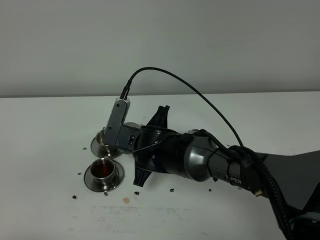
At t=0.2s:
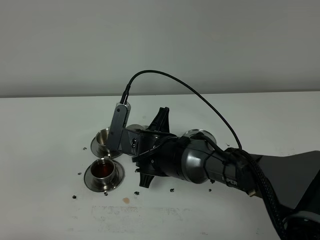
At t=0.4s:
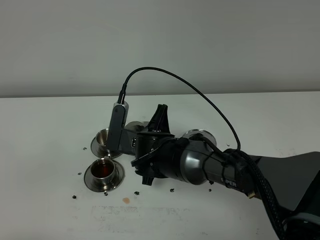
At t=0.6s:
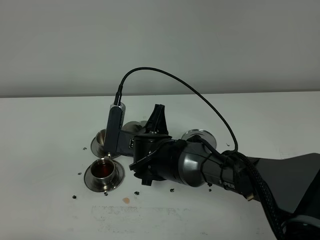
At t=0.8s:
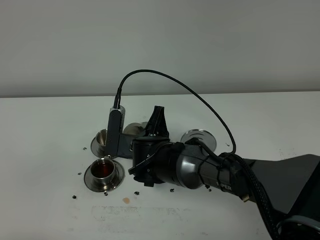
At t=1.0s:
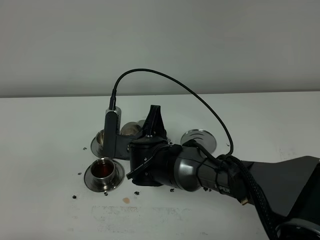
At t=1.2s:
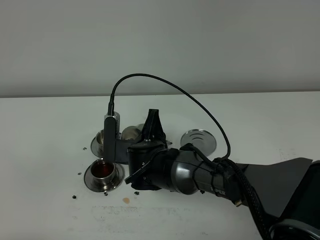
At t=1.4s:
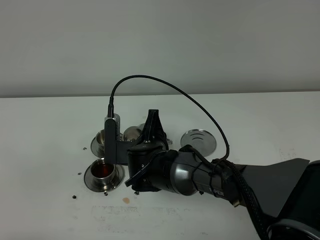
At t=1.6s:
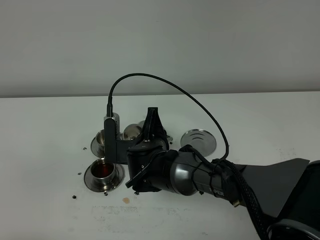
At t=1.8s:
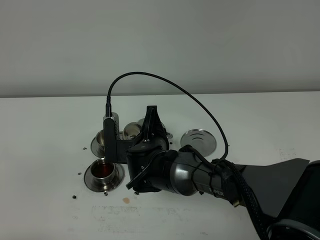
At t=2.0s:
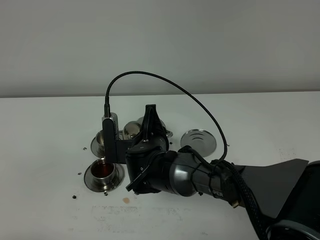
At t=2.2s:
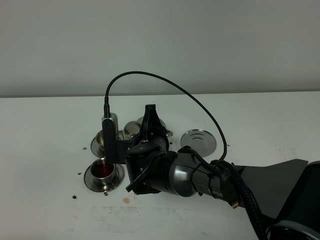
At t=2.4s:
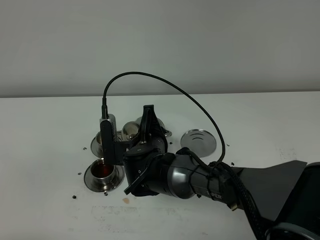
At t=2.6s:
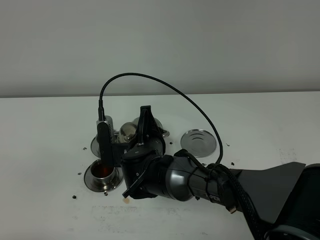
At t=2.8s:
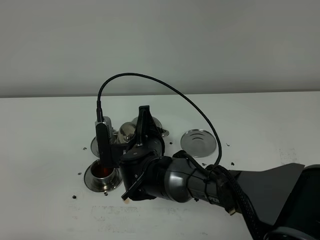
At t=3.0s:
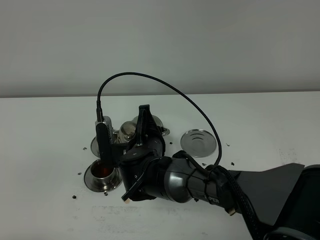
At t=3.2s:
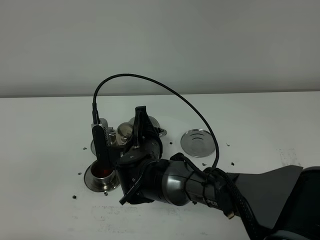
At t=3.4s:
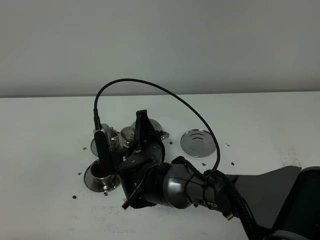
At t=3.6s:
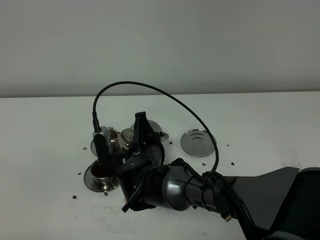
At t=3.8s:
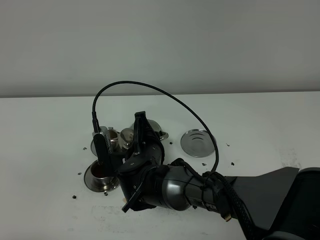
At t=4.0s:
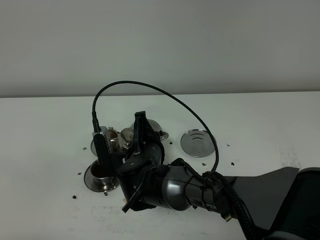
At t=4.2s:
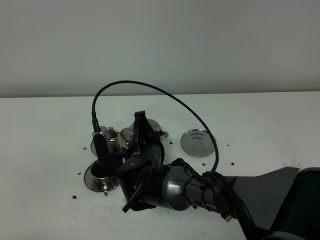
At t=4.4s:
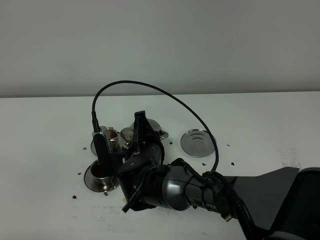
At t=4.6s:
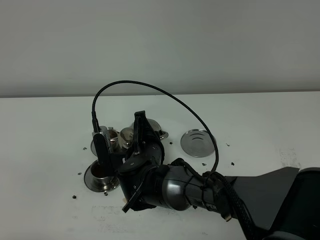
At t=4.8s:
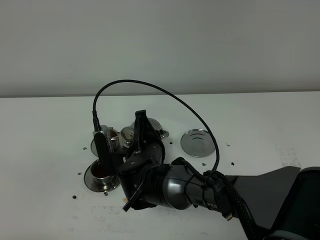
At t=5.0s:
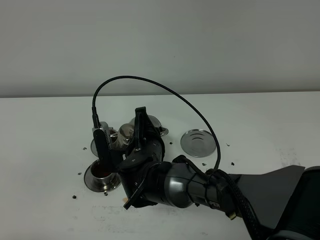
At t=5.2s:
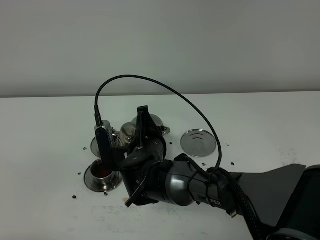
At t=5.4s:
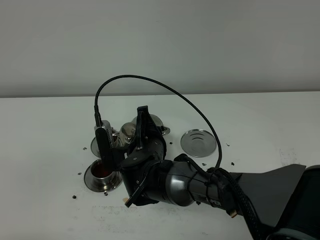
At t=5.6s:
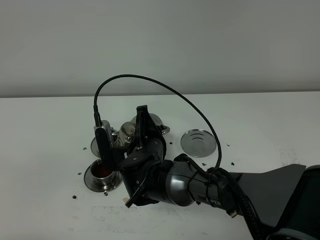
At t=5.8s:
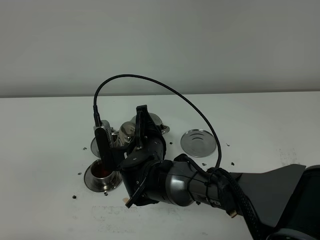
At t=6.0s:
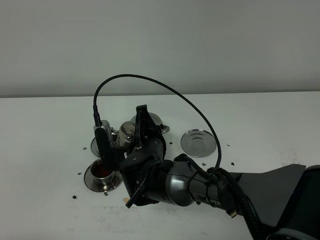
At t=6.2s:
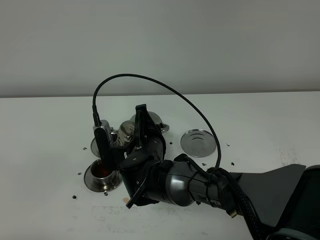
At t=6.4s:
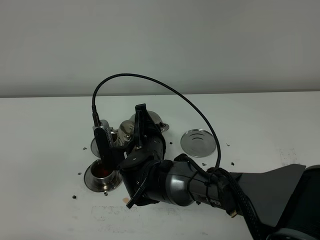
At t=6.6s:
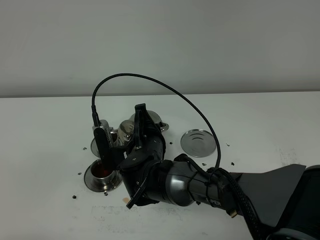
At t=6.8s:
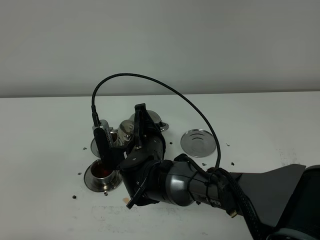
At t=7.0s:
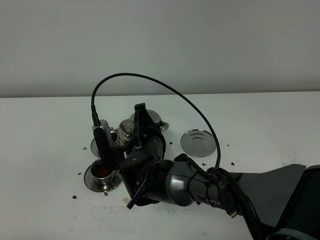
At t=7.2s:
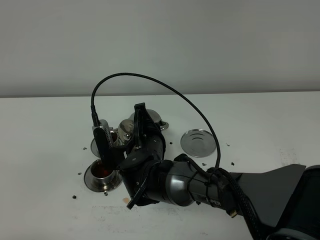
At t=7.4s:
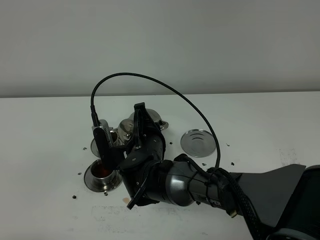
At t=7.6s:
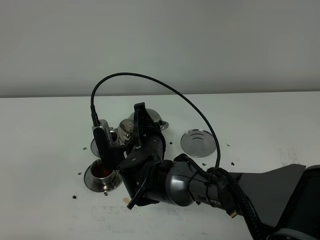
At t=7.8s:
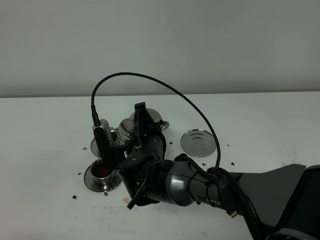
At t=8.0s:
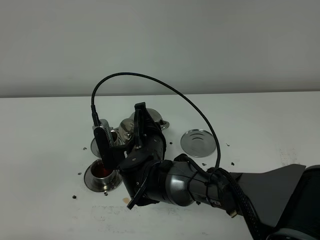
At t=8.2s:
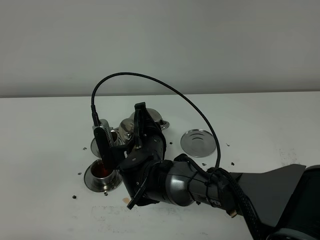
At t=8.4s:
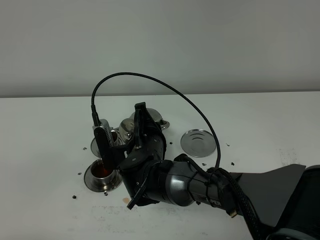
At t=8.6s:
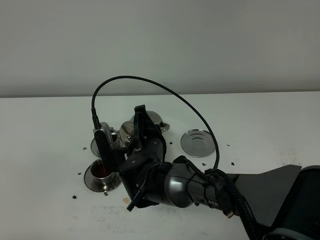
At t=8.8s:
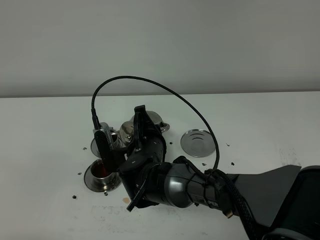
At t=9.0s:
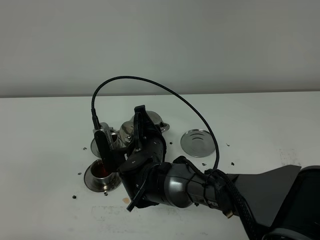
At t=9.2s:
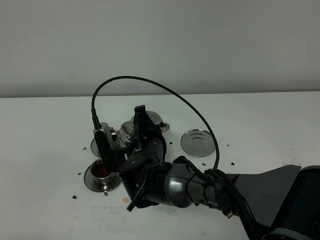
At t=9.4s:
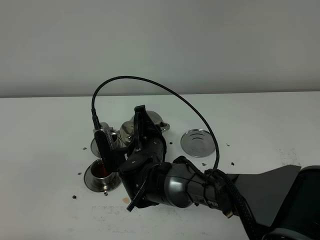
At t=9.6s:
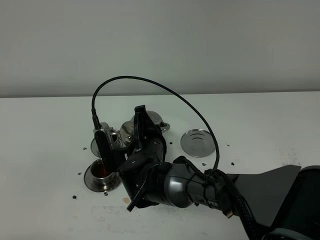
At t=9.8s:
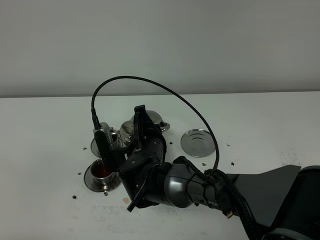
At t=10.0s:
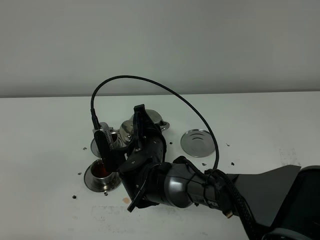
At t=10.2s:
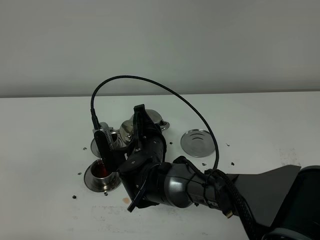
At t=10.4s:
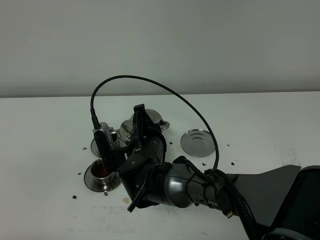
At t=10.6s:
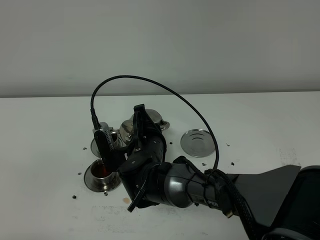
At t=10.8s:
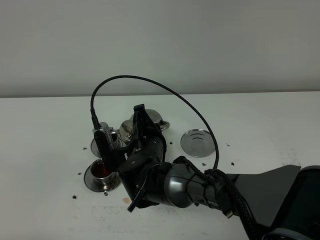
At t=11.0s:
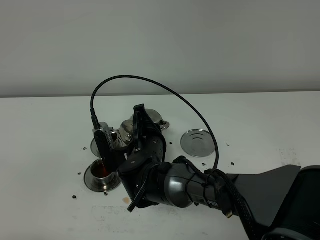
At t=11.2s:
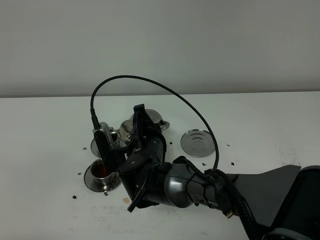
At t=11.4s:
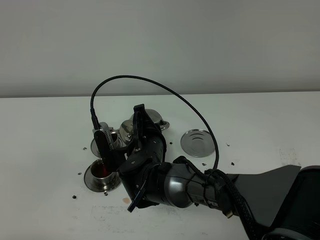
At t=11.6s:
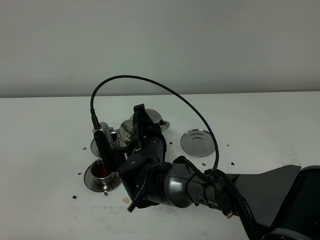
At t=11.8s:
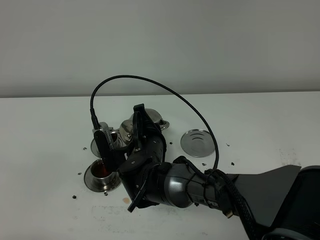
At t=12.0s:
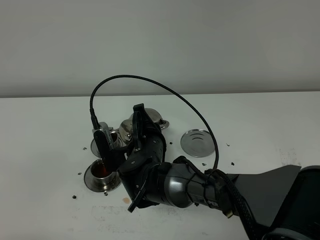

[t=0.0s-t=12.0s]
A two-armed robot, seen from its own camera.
Task of the whole recording: grasp the stainless steel teapot and pour the tea into the two stainless steel teacups one by one, put the stainless steel teapot back in its original place.
t=1.6s to t=3.0s: There are only small adjustments of the grippers.
t=3.0s to t=4.4s: Neither gripper changes place.
t=4.4s to t=9.0s: Neither gripper changes place.
t=9.0s to t=12.0s: Both grippers stay put.

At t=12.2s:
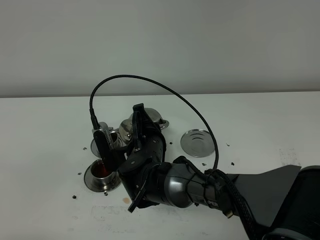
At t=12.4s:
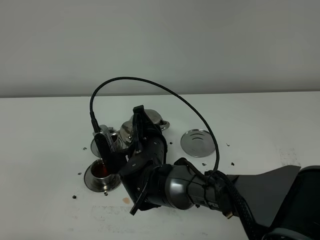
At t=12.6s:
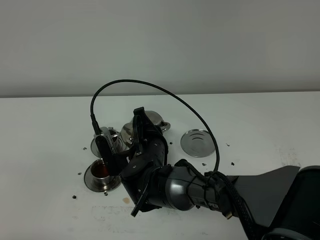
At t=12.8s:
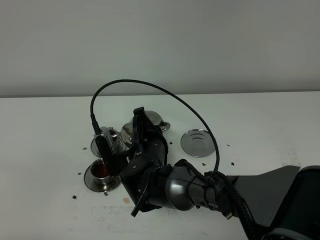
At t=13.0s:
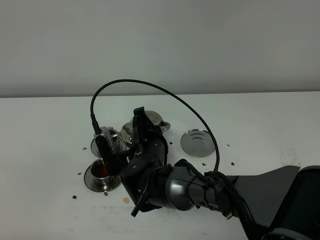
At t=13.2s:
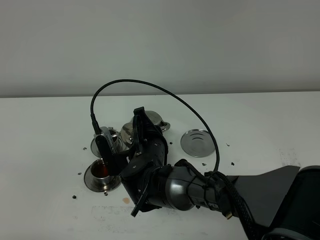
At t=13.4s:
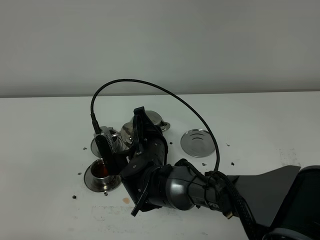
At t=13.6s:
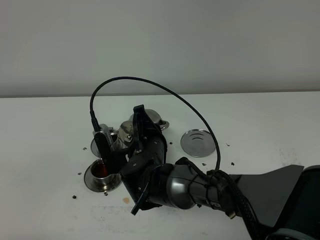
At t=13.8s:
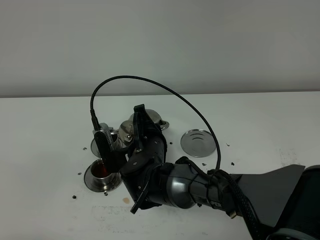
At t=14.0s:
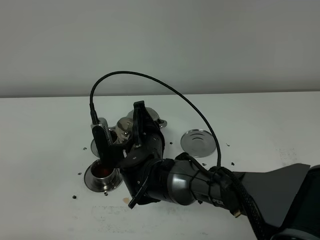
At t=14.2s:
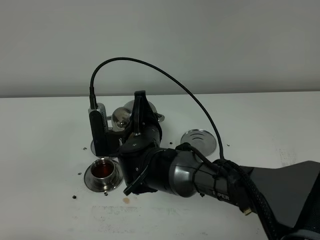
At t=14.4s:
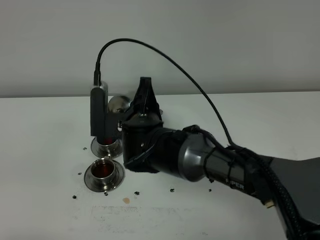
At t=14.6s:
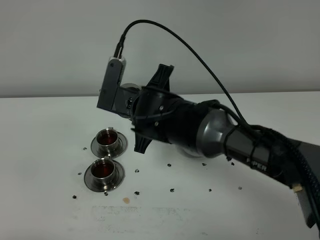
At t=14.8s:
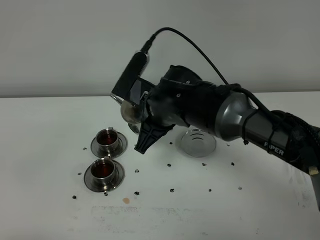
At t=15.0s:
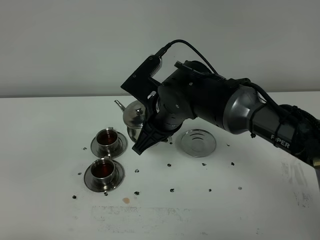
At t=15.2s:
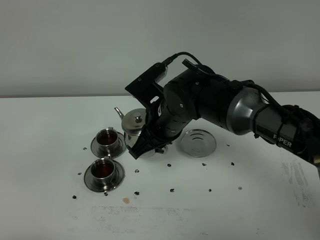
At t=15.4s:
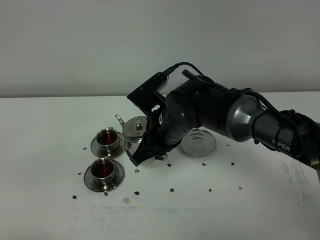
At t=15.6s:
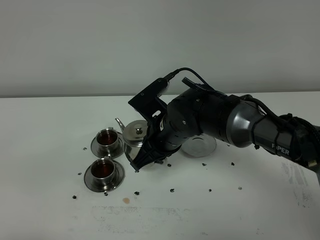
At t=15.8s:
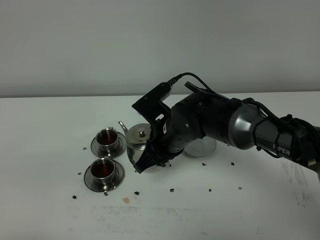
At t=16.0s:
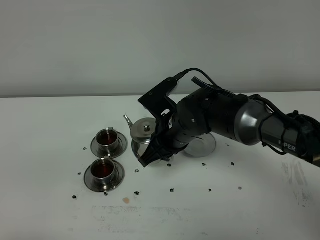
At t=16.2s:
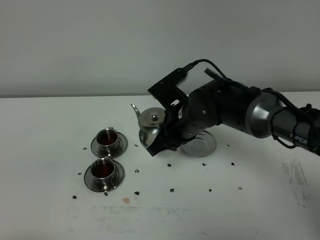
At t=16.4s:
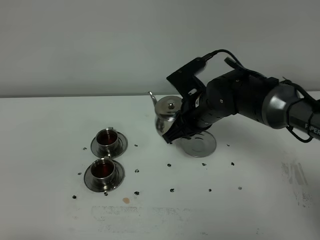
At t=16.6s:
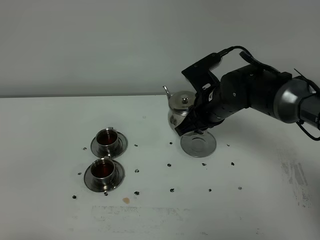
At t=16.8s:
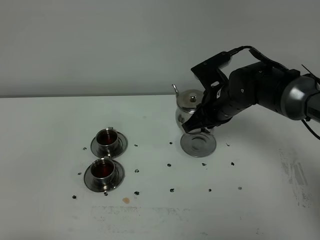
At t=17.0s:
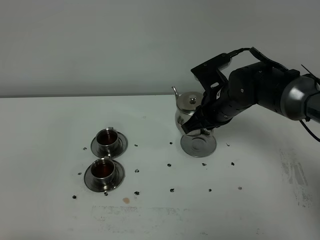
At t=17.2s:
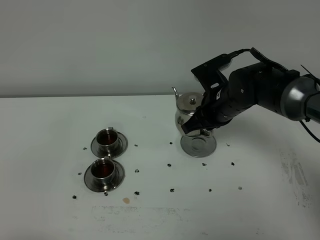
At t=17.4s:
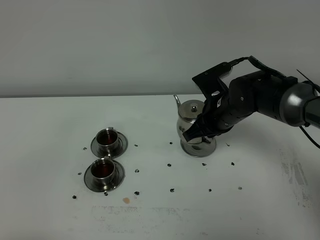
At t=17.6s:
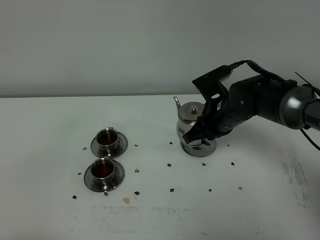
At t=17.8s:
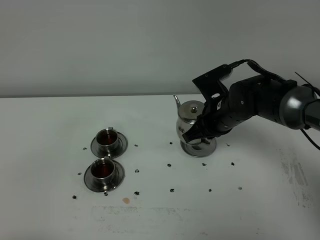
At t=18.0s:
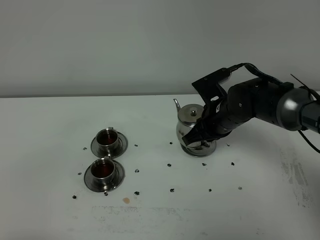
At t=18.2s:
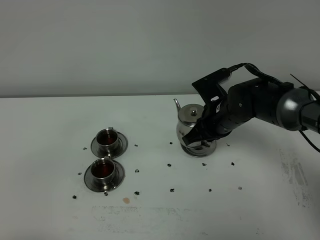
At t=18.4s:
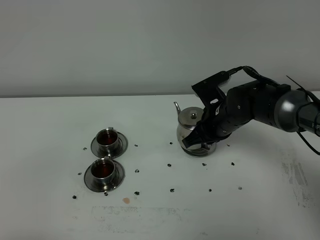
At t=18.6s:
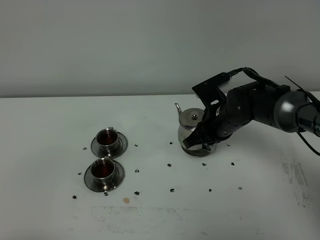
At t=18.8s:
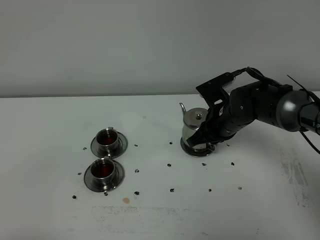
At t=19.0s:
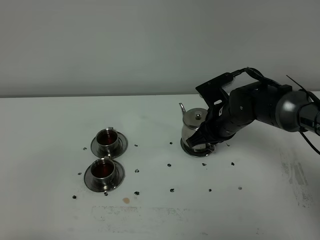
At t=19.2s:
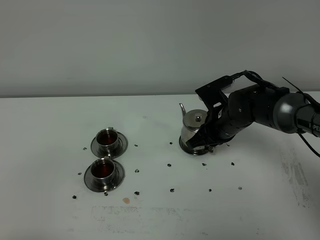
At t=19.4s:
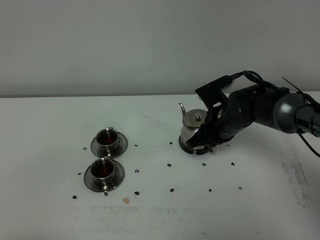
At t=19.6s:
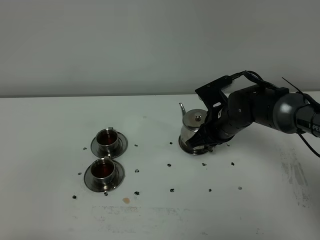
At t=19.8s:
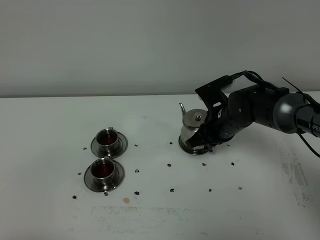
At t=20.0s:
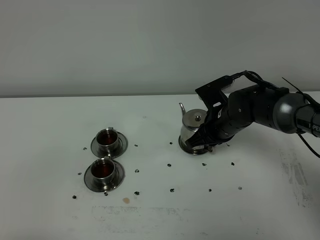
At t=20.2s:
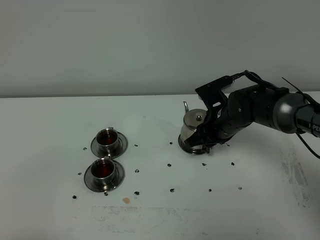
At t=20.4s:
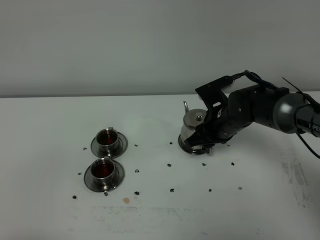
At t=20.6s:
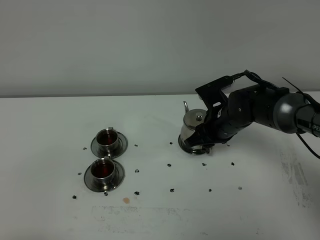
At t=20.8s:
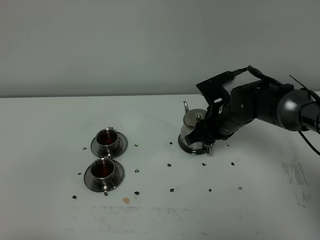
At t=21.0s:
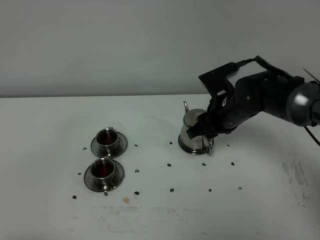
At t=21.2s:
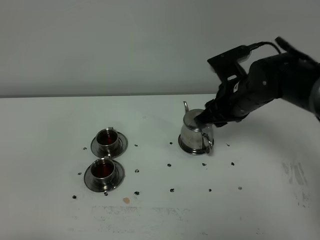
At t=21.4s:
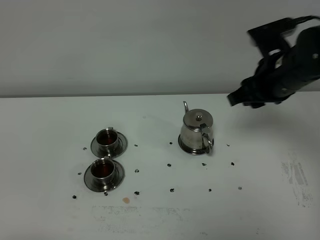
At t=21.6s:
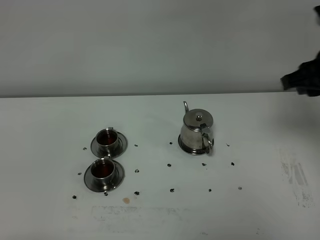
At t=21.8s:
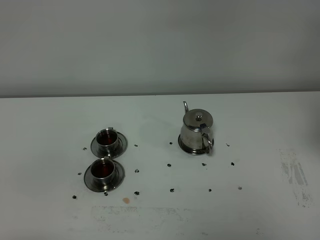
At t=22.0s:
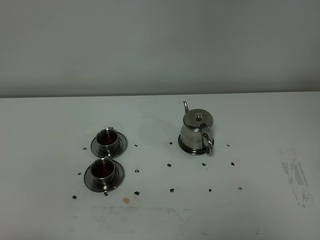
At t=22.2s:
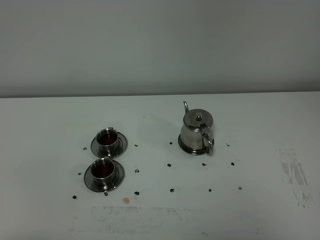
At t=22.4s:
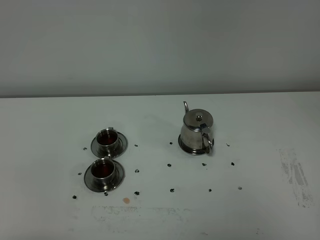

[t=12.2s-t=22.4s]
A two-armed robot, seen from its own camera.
Task of the whole recording: grasp the stainless steel teapot and pour the tea into the two stainless steel teacups one by one, put the stainless steel teapot back in its original place.
t=12.2s to t=13.6s: Neither gripper changes place.
t=13.6s to t=15.2s: The right gripper is displaced upward by some 10 cm.
t=15.2s to t=16.6s: The right gripper heads to the right and forward, covering about 10 cm.
t=16.6s to t=19.4s: The grippers make only small movements.
t=19.4s to t=21.0s: The right gripper opens.
t=21.0s to t=22.4s: The right gripper heads backward and to the right, covering roughly 40 cm.
